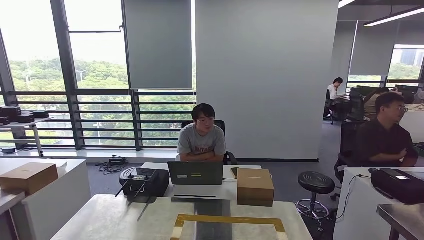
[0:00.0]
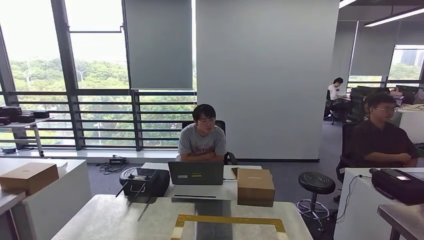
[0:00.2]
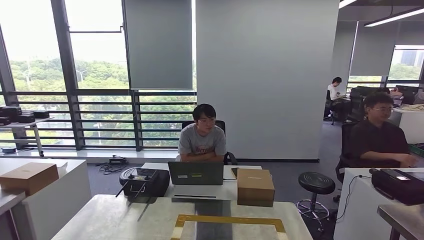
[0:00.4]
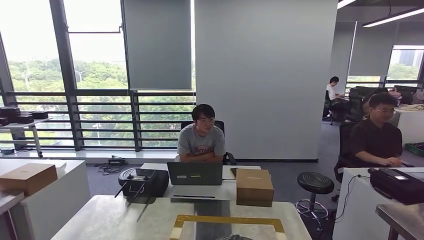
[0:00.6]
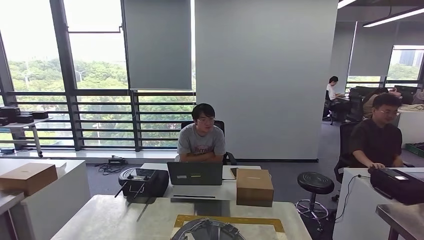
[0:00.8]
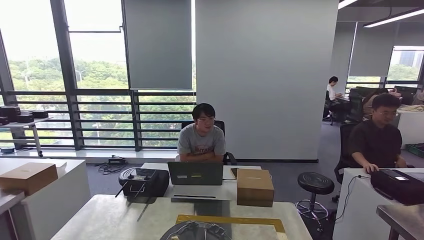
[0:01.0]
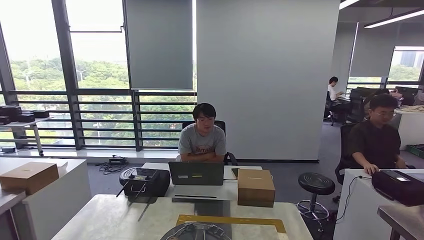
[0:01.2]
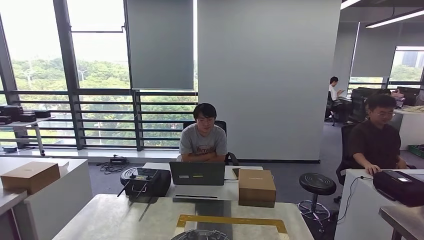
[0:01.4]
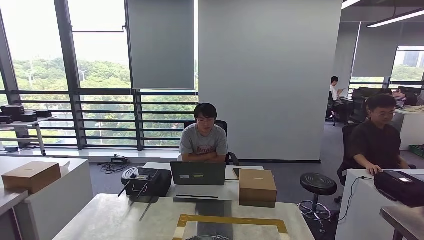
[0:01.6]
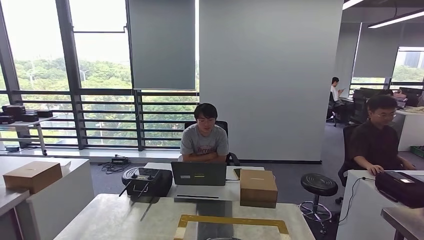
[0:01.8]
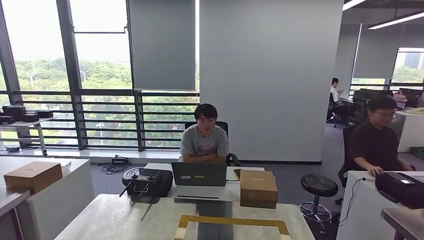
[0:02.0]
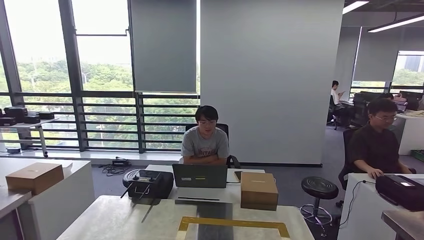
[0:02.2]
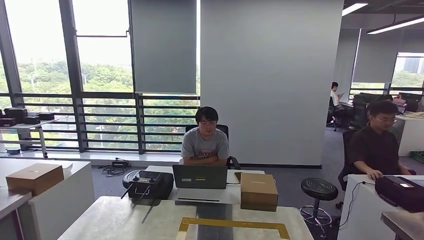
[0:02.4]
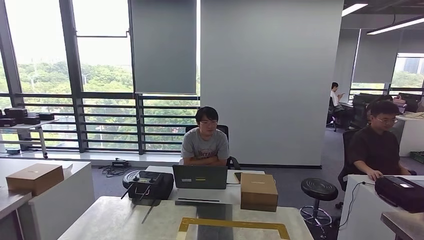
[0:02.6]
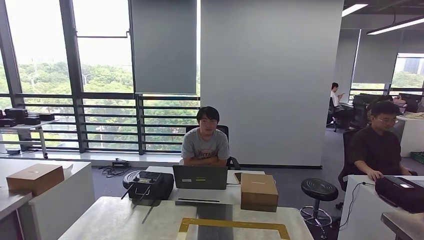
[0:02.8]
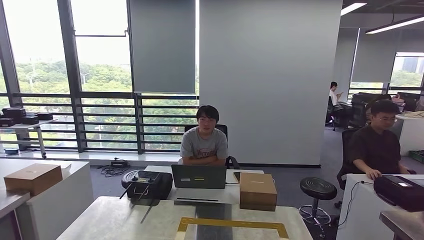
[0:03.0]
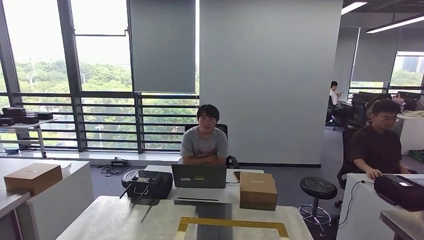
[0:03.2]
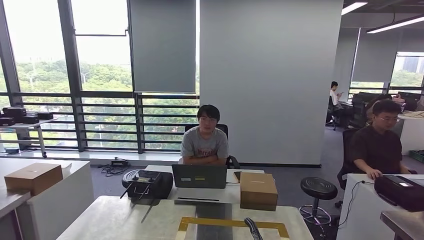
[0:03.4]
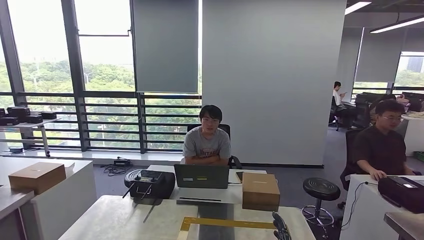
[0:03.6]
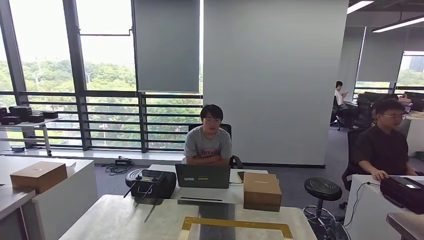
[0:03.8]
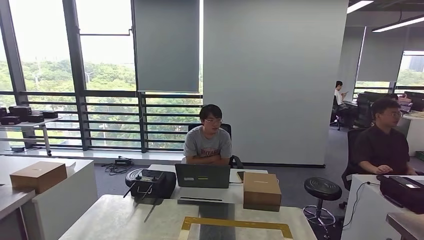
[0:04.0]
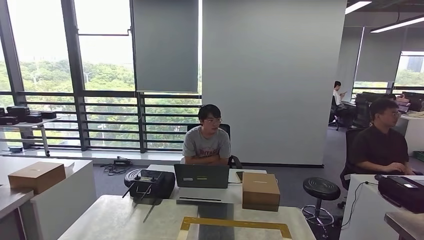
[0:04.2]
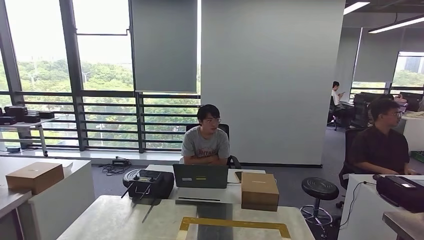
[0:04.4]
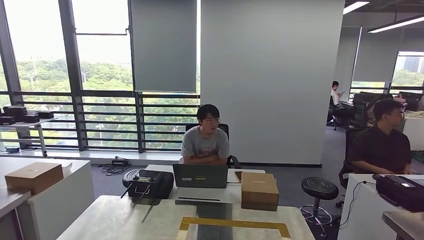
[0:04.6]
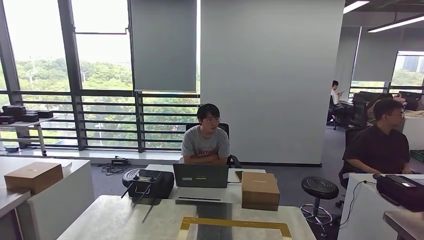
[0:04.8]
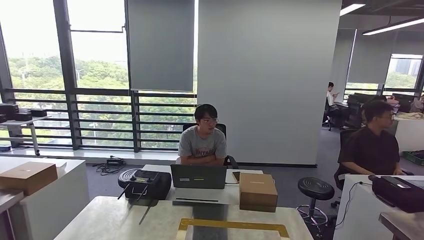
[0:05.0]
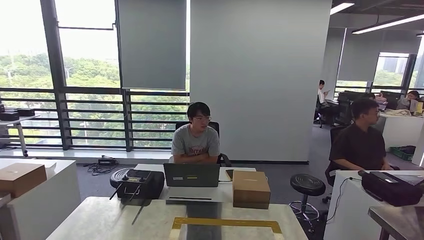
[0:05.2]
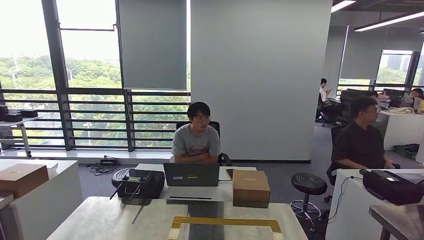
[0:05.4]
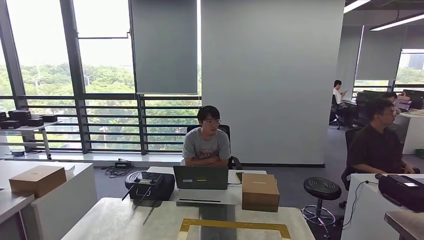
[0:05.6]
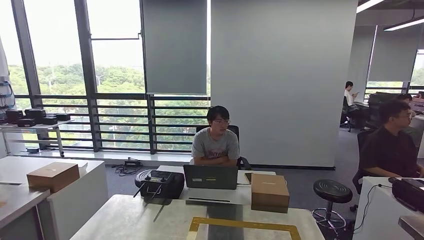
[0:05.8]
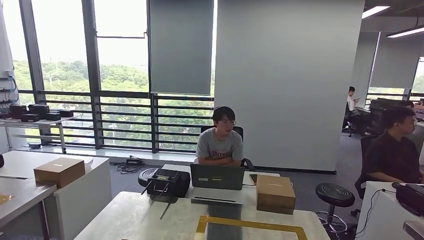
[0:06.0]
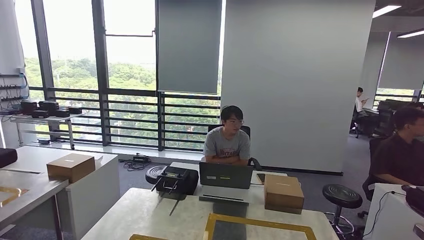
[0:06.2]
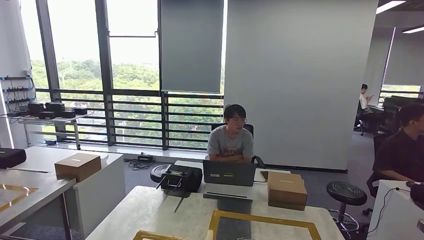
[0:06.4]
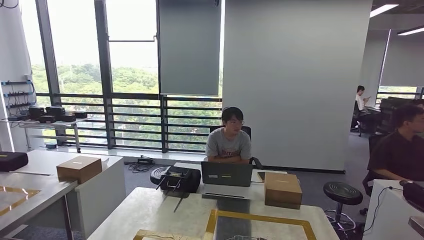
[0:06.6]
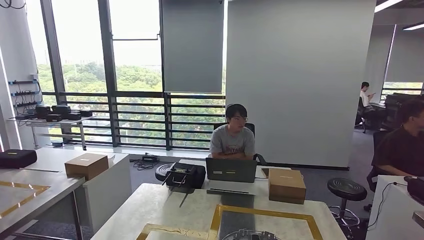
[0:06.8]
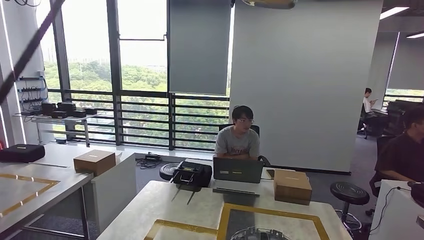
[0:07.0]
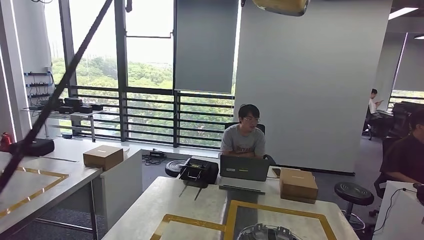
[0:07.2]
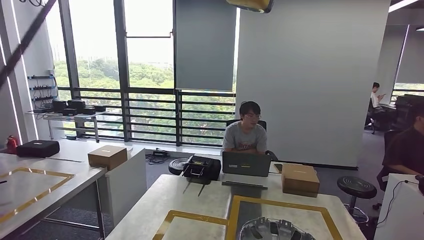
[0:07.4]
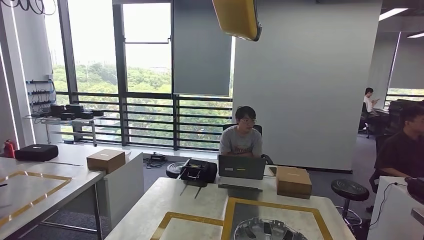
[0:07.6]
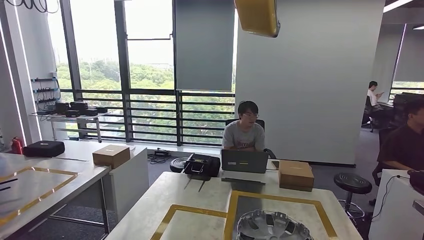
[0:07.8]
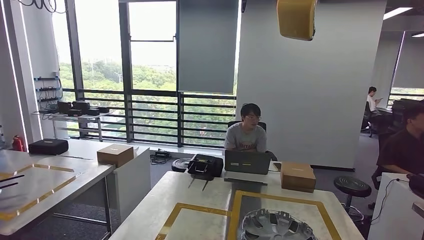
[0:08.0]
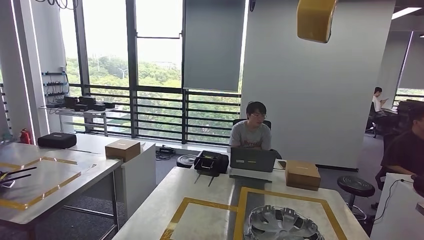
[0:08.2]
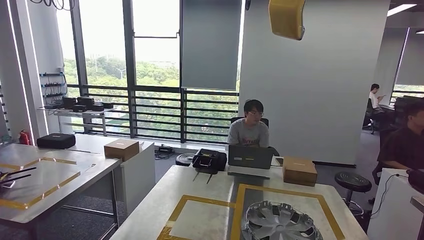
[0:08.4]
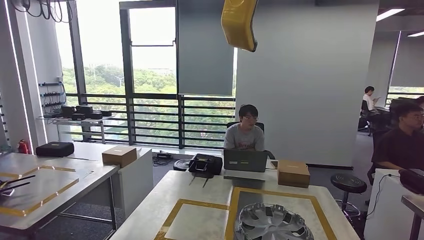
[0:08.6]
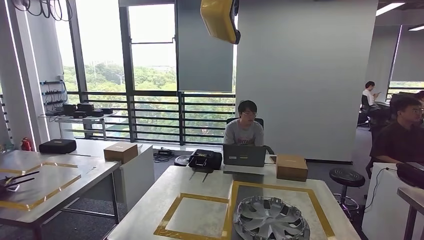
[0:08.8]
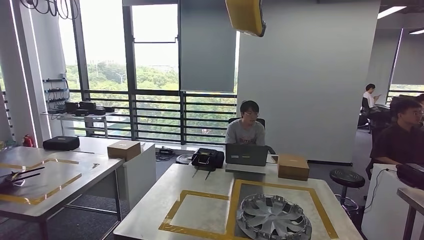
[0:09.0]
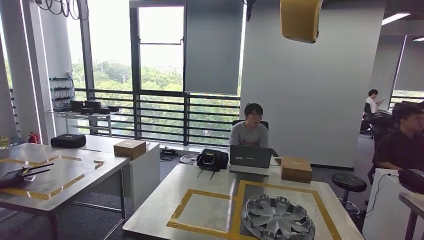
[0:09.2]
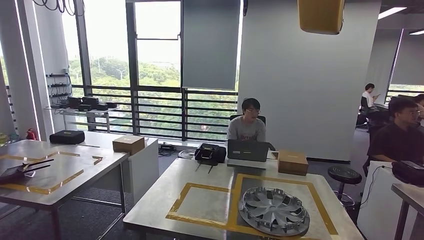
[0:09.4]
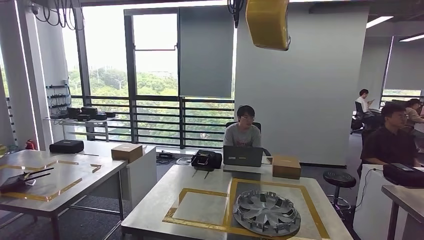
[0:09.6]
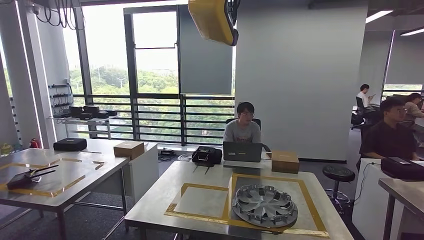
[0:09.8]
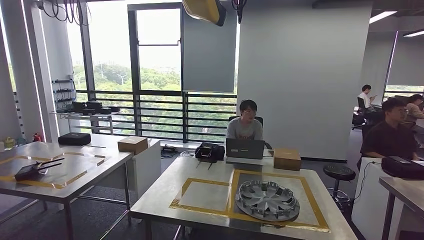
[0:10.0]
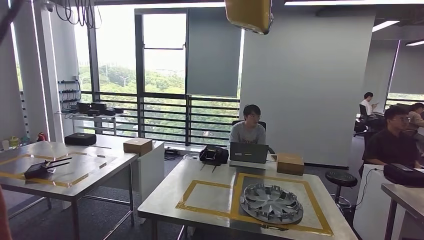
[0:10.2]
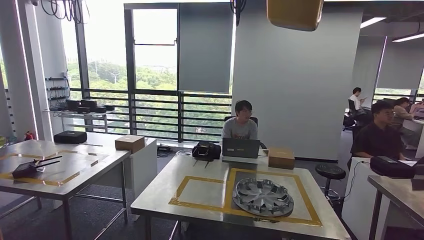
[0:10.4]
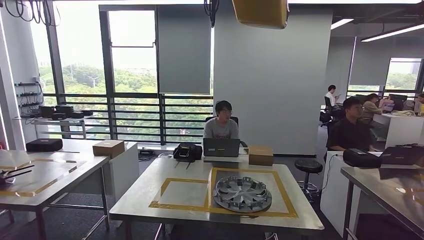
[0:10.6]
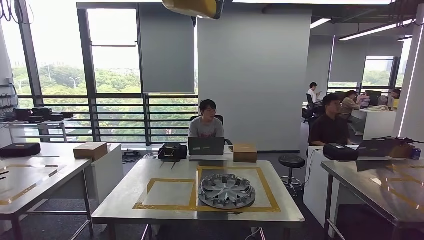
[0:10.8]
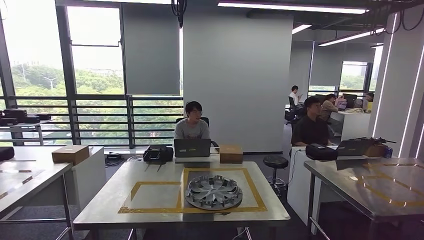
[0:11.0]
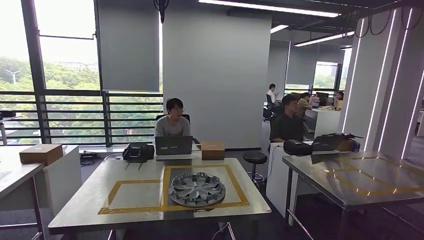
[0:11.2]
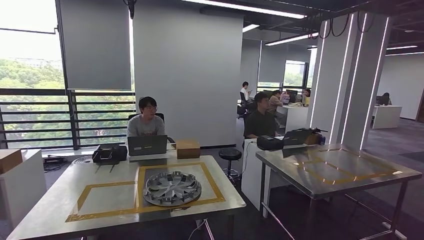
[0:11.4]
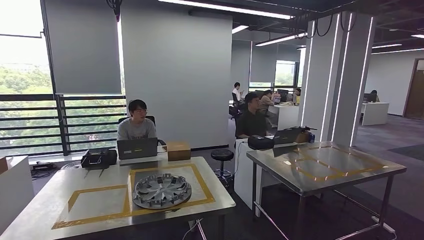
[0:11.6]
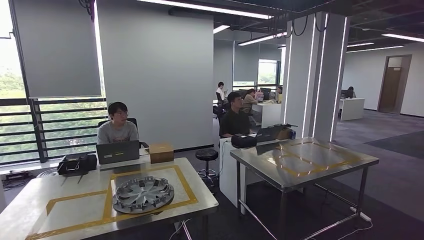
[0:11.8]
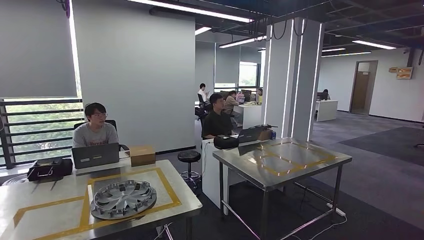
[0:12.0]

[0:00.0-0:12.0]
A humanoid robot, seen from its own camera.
Step, 0:00.0 to 0:04.4: Insert the small component into the corresponding slot on the workbench.
0:00.0 to 0:01.6: The left hand heads to the right, covering roughly 5 cm; the right hand is displaced to the left by roughly 10 cm.
0:03.0 to 0:04.4: The left hand moves to the left, about 5 cm; the right hand shifts some 25 cm backward, to the right and upward.

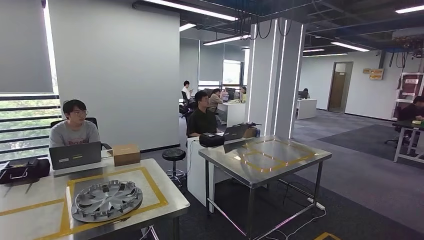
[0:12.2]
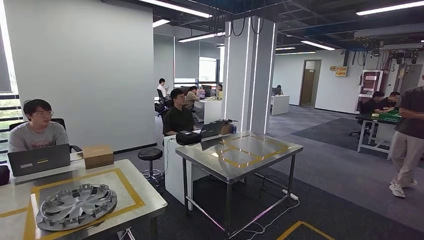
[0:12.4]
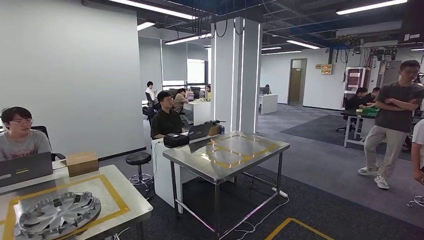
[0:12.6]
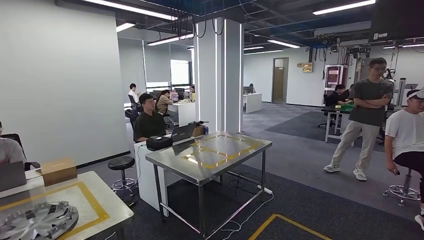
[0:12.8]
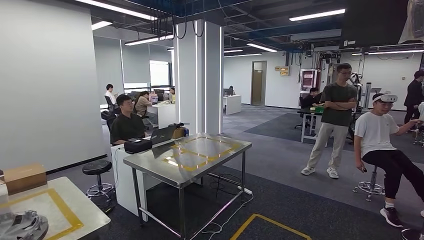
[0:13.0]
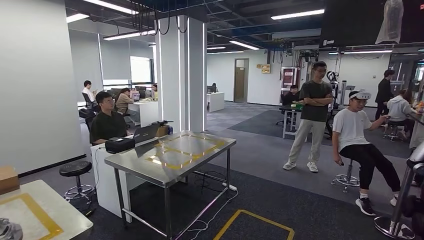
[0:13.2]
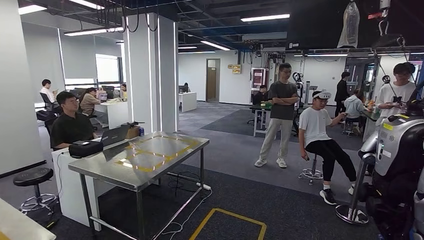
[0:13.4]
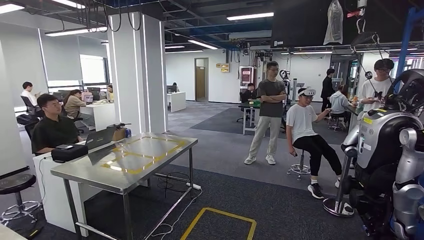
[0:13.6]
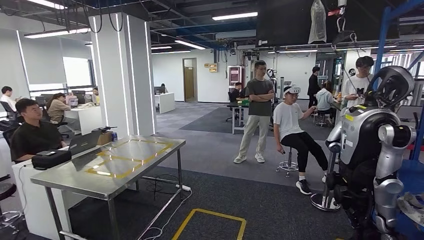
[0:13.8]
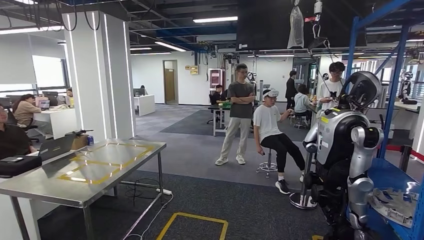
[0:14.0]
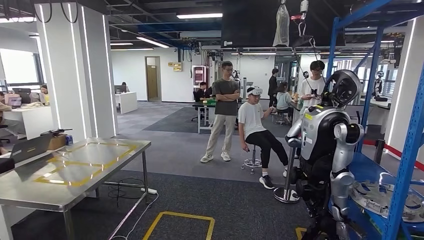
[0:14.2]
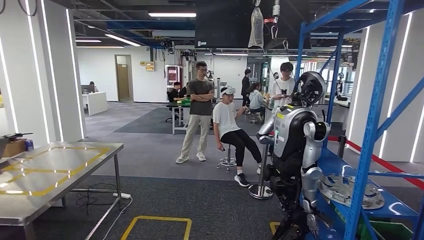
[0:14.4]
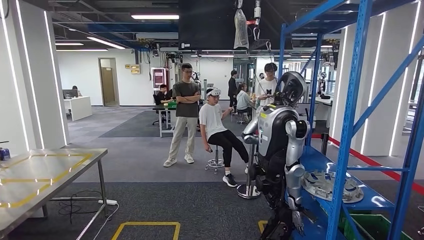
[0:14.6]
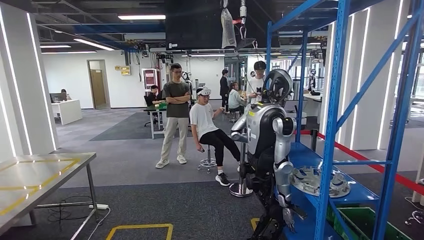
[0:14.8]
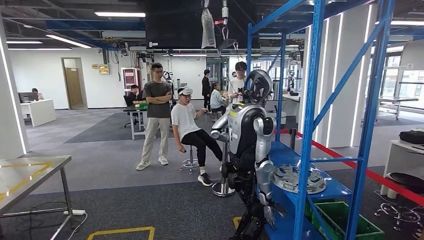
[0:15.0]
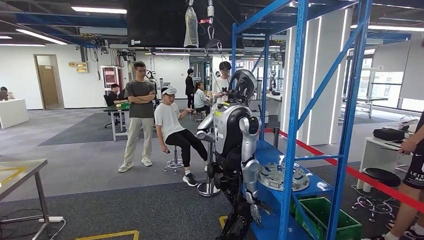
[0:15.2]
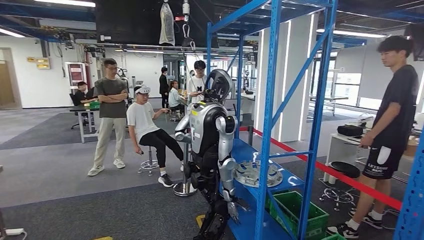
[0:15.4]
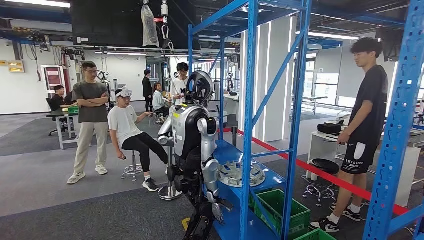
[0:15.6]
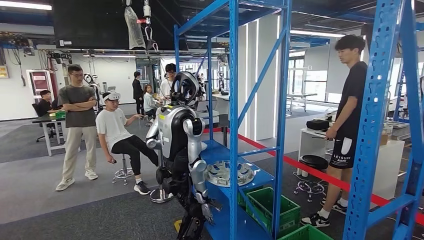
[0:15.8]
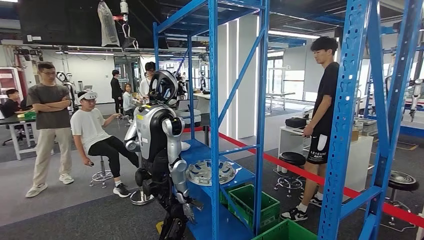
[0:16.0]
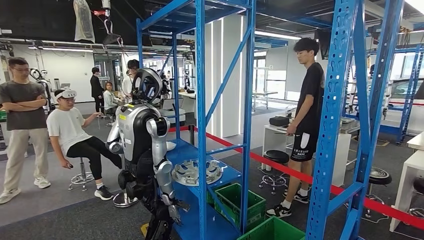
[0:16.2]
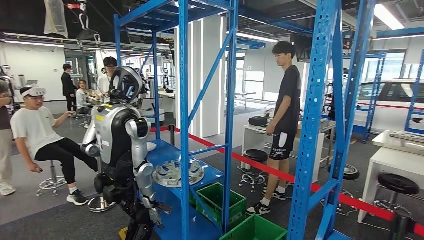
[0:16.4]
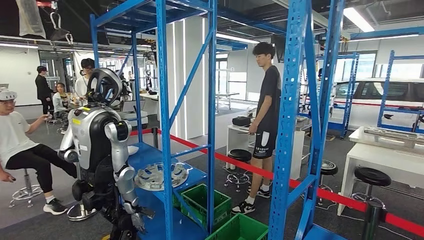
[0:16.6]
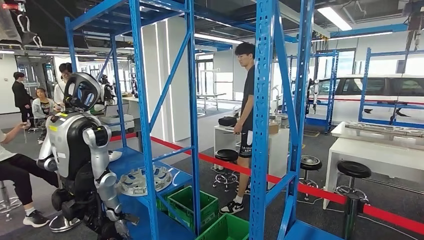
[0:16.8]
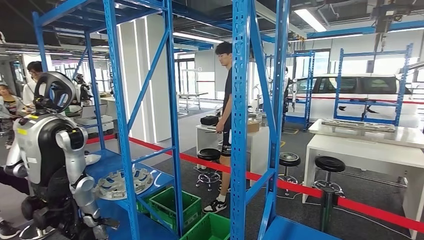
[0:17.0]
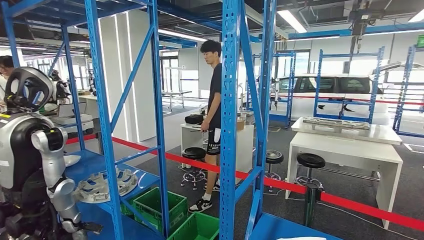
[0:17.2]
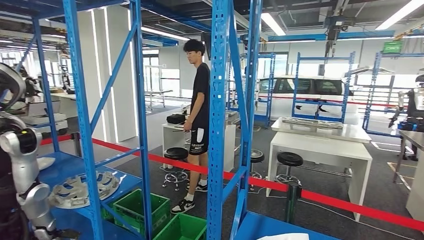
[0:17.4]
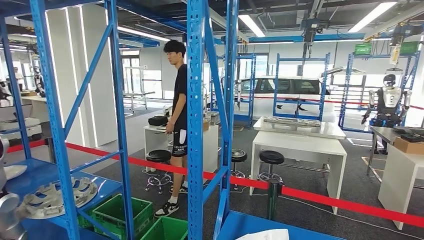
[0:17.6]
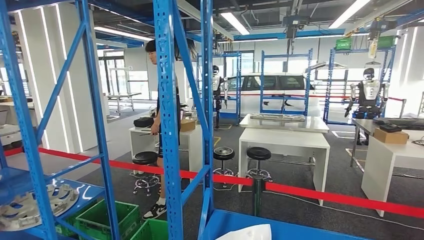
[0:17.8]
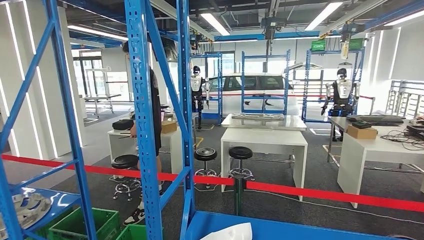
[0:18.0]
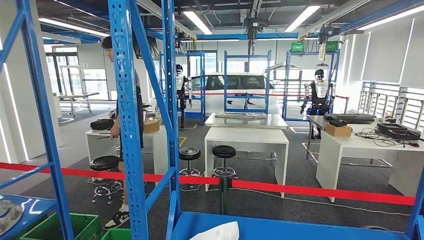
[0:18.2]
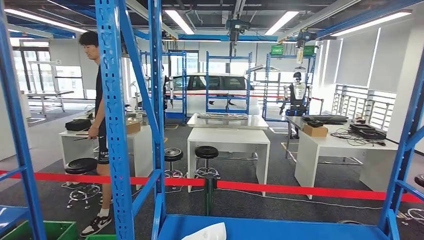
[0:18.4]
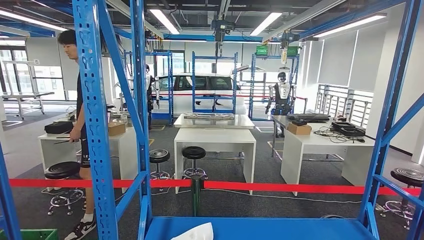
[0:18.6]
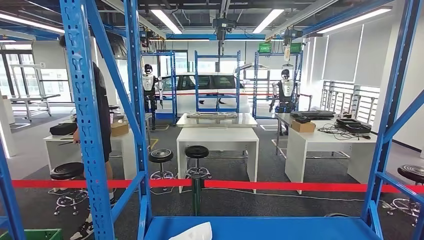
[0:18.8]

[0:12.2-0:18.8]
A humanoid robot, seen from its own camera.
Step, 0:12.2 to 0:18.6: Move to the initial position at the workbench.
